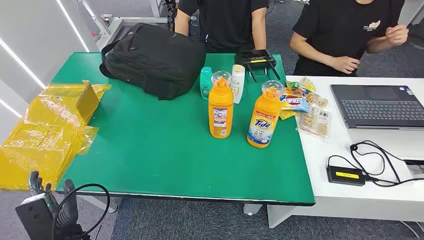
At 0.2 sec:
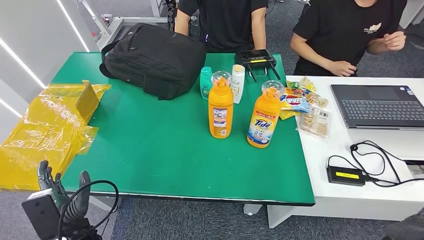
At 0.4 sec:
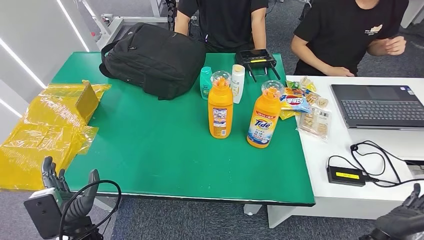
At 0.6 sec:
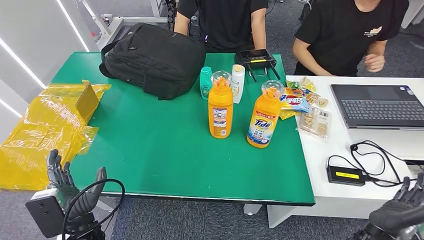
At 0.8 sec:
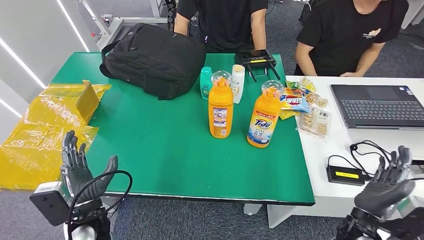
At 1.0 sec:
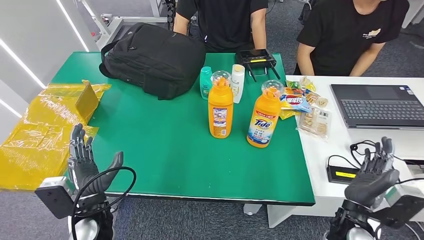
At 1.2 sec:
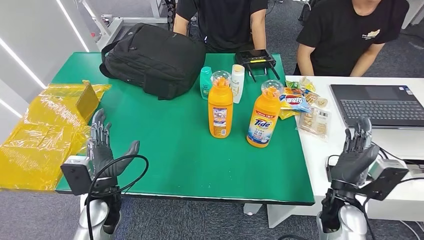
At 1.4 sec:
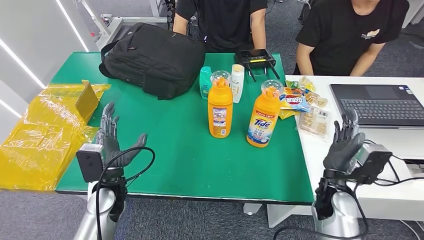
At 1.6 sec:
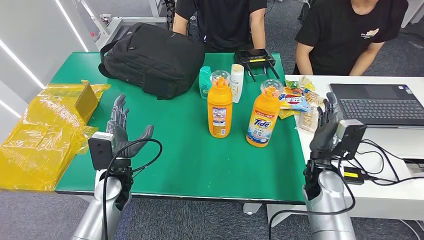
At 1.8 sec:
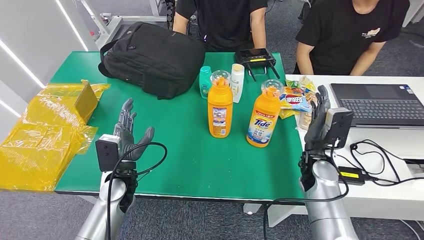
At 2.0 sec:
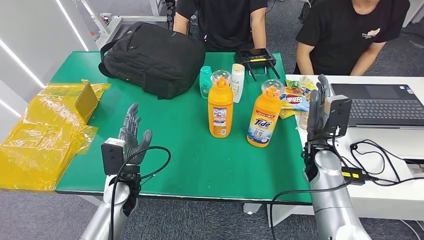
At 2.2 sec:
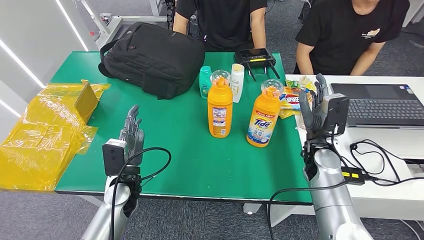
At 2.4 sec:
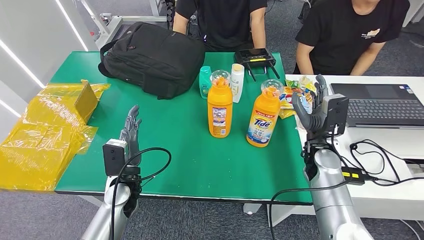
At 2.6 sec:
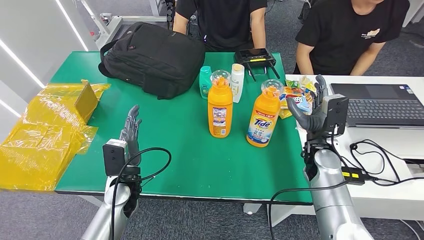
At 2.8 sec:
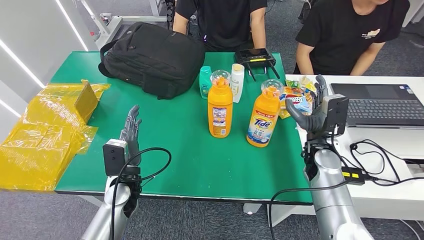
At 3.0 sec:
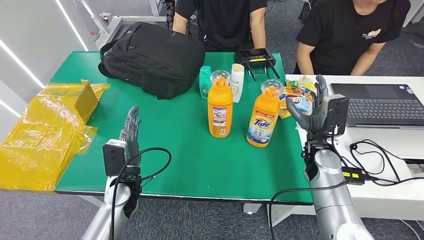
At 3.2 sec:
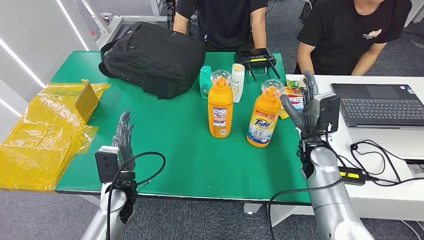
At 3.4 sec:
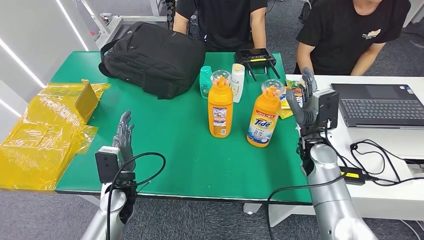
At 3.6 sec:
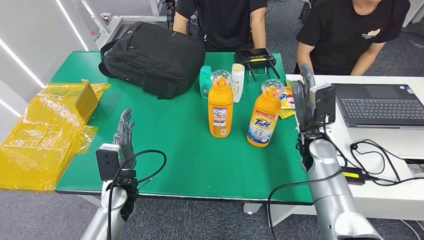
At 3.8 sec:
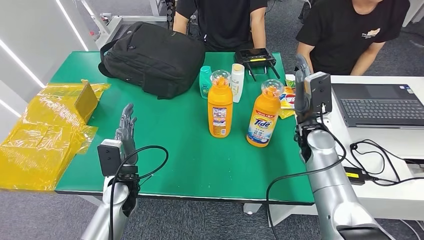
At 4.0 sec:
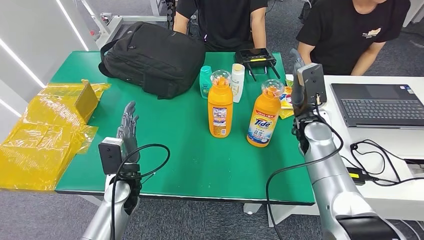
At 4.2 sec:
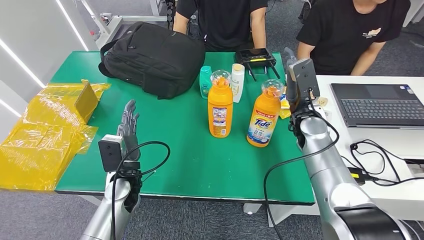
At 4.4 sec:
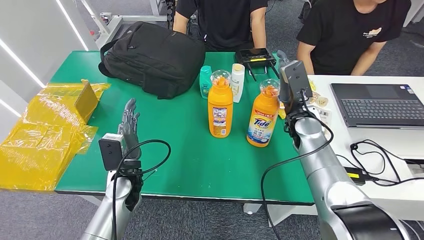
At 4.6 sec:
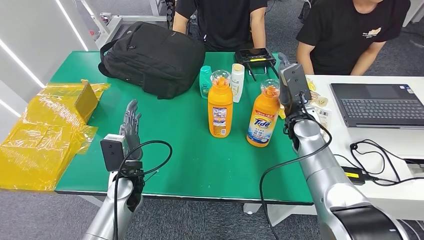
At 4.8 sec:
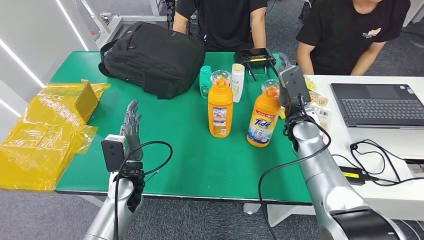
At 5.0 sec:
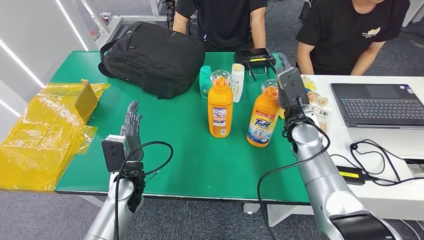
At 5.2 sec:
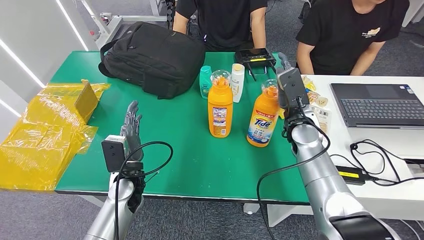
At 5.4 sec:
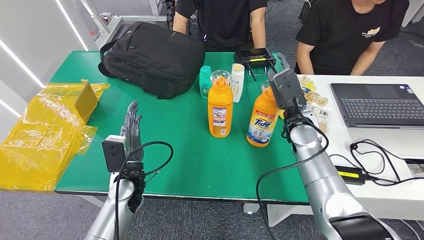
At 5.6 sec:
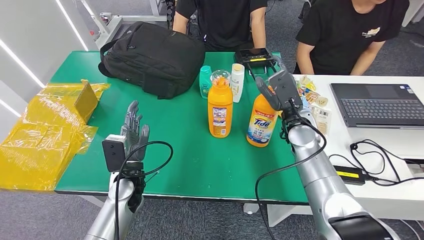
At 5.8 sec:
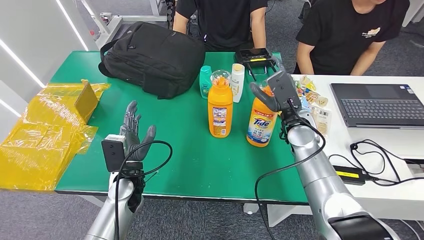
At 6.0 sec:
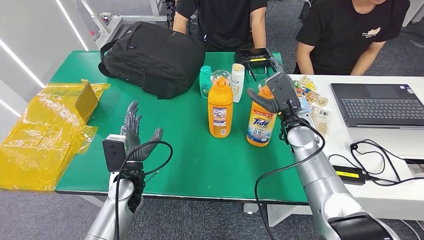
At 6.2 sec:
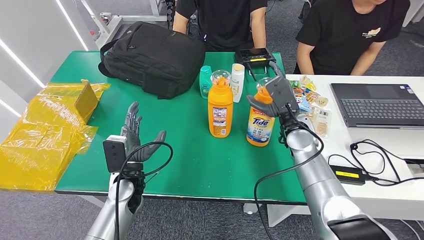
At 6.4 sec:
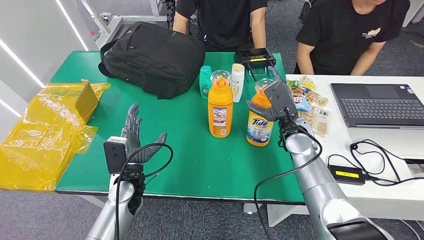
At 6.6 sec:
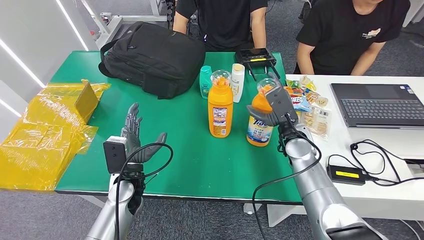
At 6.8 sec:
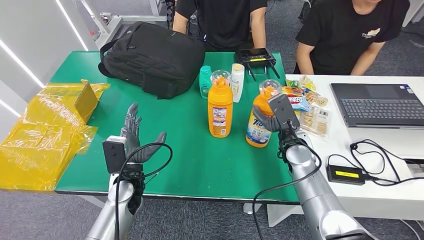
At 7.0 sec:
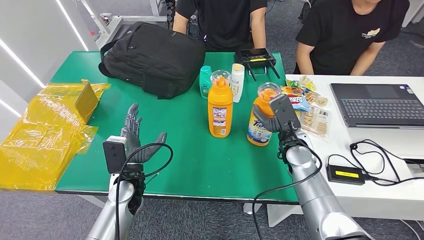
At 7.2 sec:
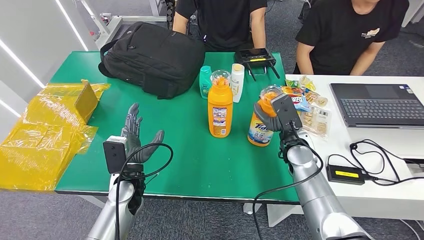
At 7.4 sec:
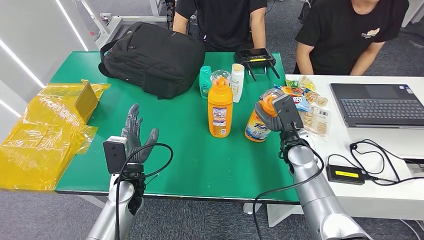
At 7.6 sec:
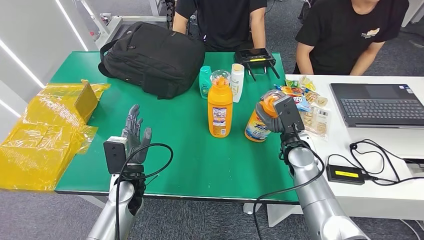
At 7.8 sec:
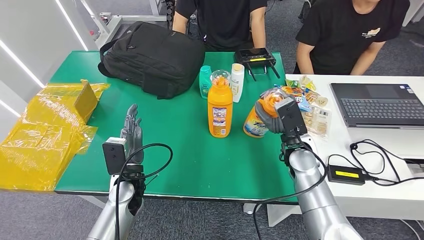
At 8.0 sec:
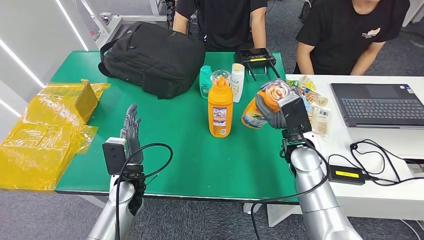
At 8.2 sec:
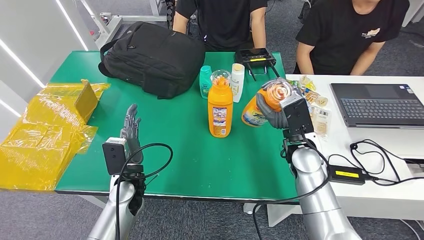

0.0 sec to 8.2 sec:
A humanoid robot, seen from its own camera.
Step, 0.0 sec to 8.2 sec: Pick up the bottle from the table.
1.6 sec to 3.2 sec: The right hand changes place by roughly 5 cm.
3.2 sec to 5.0 sec: The right hand changes place by some 5 cm.
5.0 sec to 6.6 sec: There are only small adjustments of the hands.
6.6 sec to 8.2 sec: The hands make only small movements.
